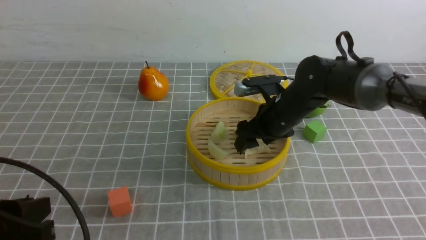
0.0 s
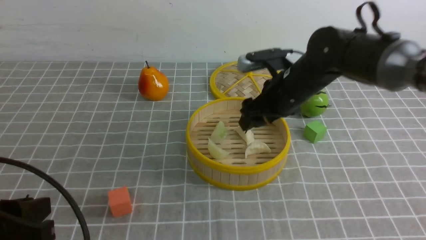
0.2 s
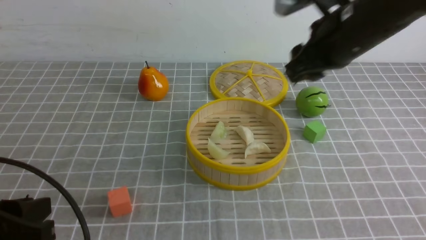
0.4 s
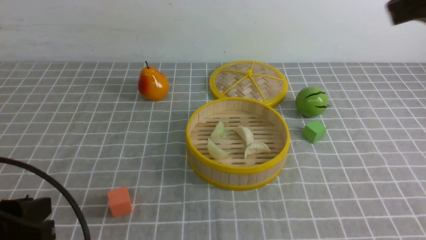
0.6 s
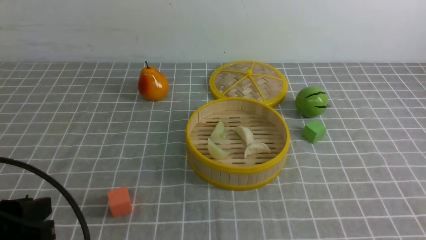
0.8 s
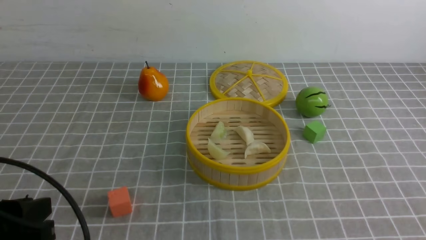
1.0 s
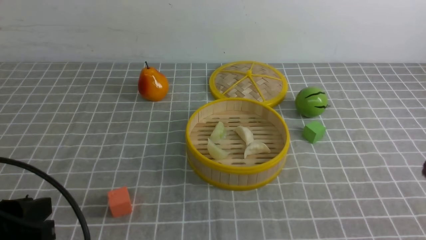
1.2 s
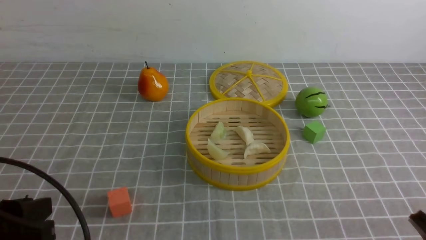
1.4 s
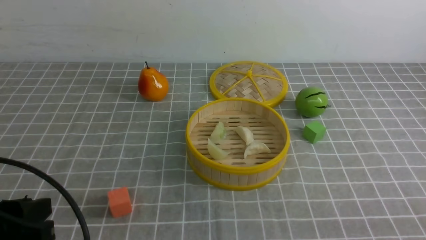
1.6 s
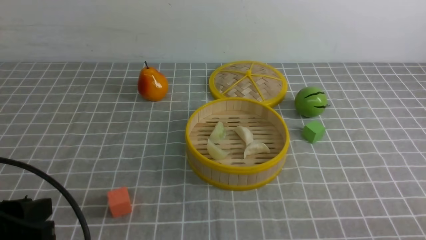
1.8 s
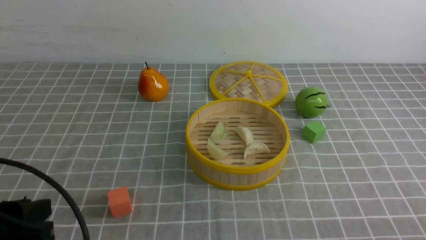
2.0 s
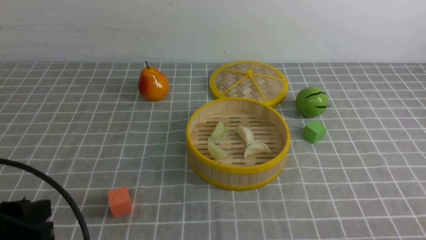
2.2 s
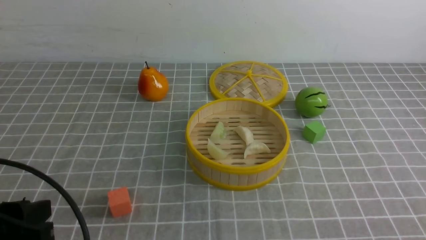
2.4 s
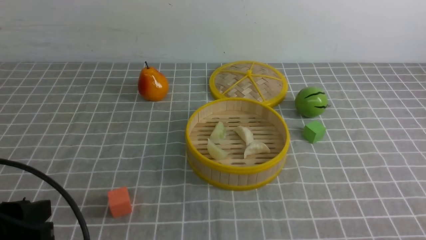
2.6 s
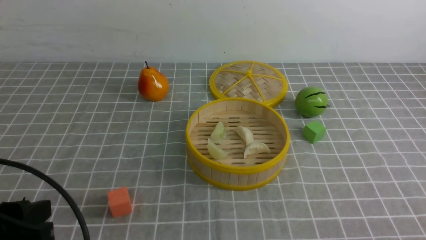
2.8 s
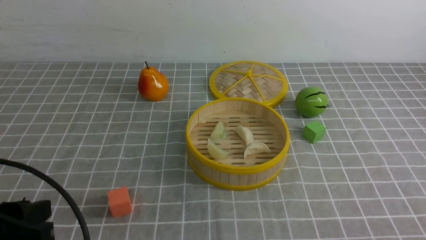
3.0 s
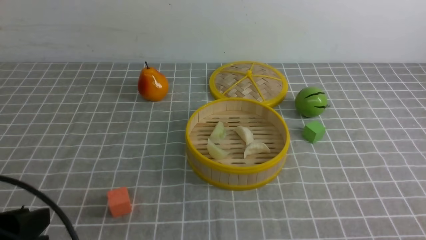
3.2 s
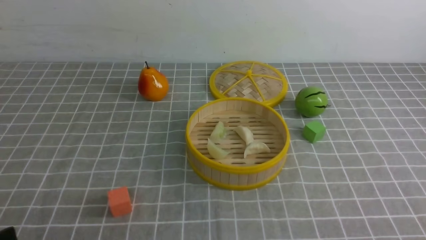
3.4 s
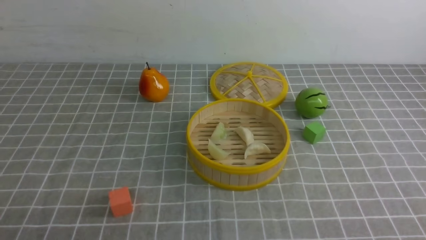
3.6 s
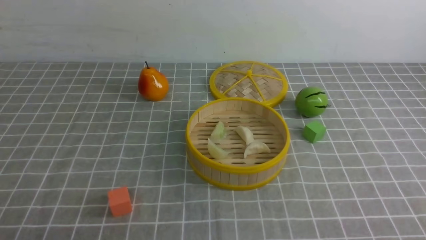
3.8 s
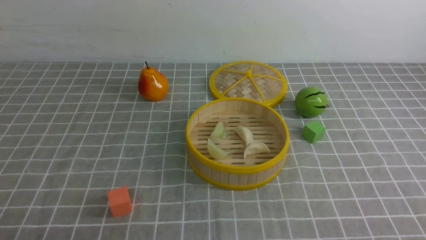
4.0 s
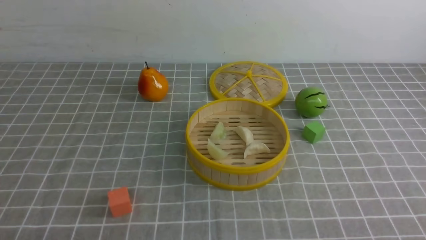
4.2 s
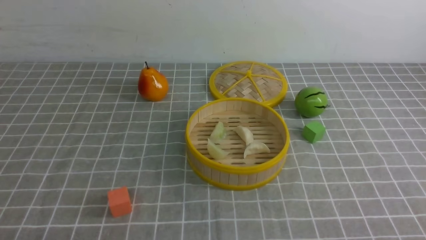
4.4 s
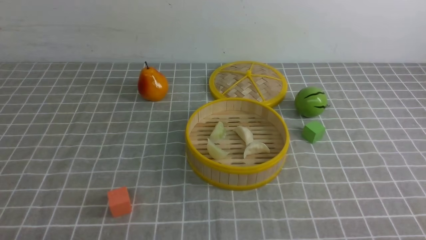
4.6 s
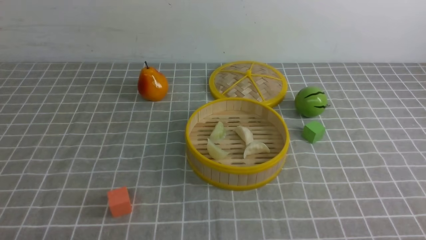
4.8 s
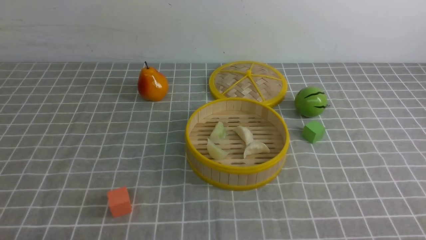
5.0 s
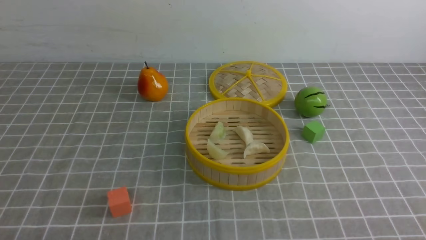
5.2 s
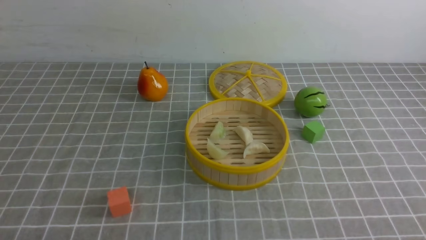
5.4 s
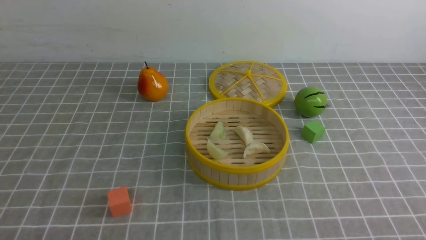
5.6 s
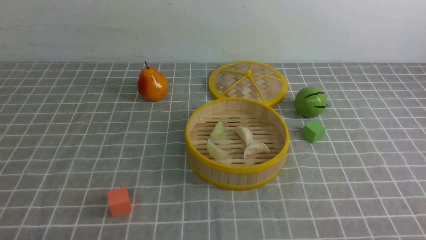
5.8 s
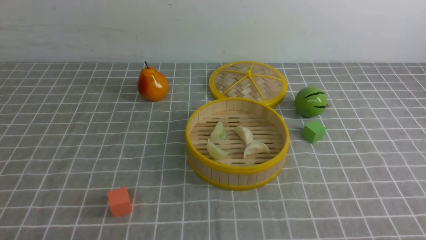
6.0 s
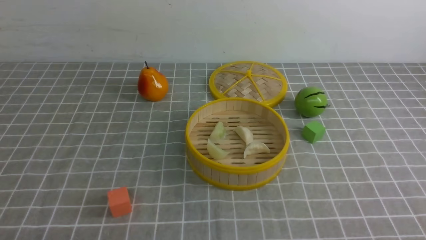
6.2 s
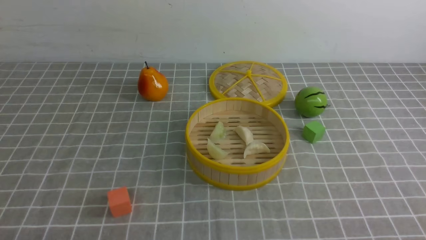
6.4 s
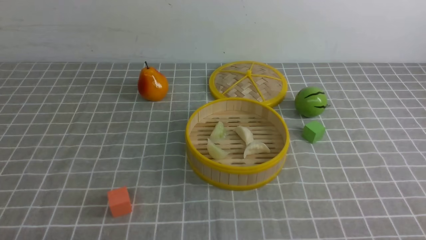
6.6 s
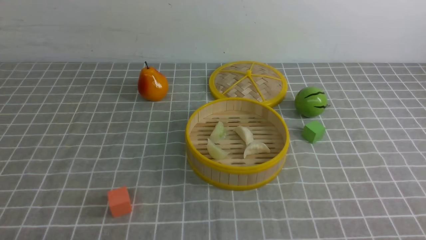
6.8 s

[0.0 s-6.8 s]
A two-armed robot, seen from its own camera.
Task of the whole recording: put the dumplings into the steamer on the table with the grey tablecloth.
0.0 to 1.4 s: The right gripper is displaced backward and to the right by roughly 40 cm, and closes up.
2.8 to 4.0 s: The left gripper shifts roughly 10 cm downward and backward, and closes up.
5.4 to 6.8 s: Both grippers stay about where they are.
